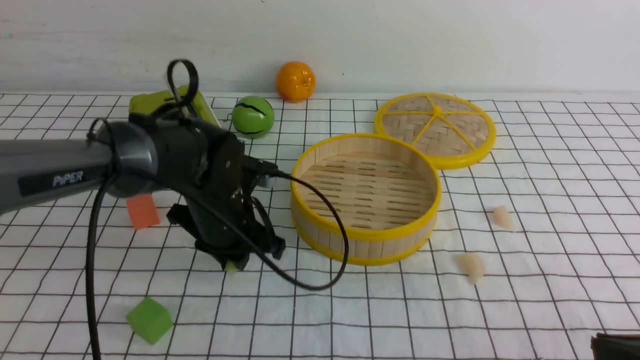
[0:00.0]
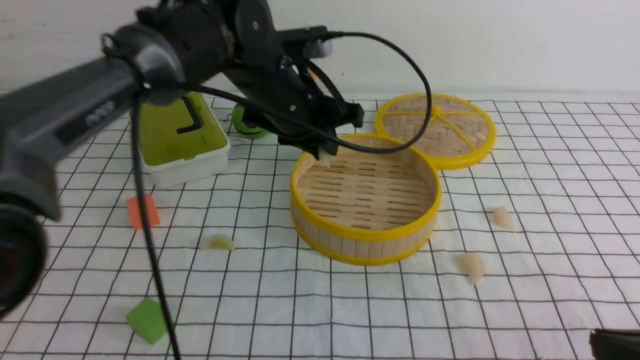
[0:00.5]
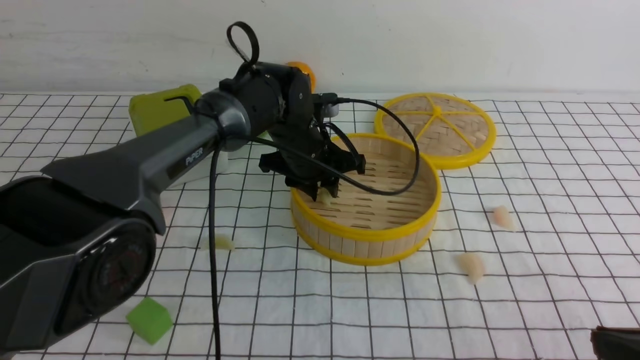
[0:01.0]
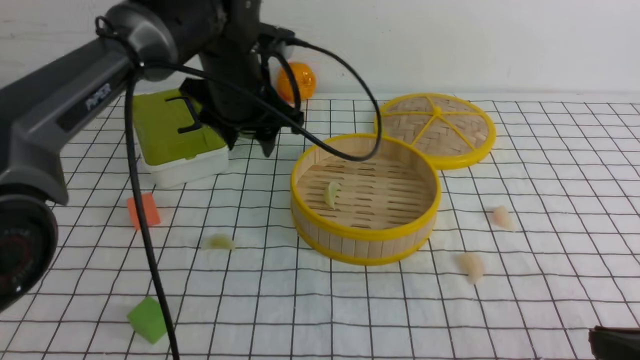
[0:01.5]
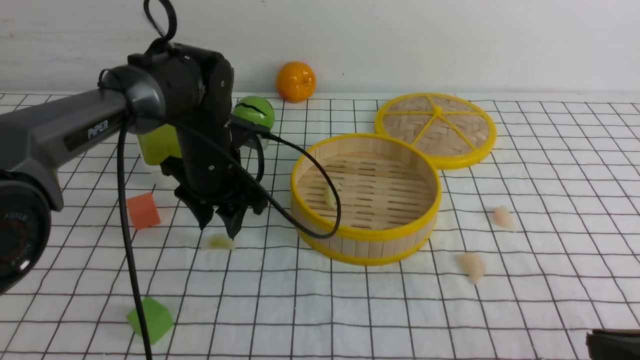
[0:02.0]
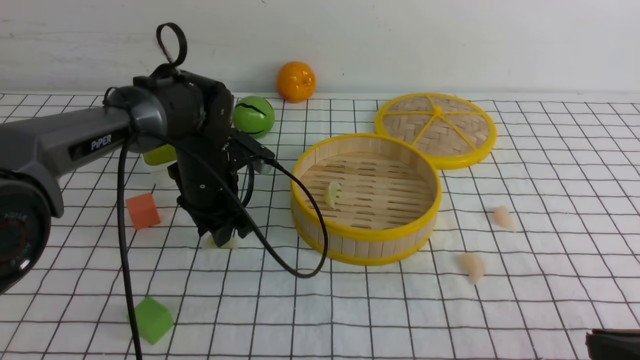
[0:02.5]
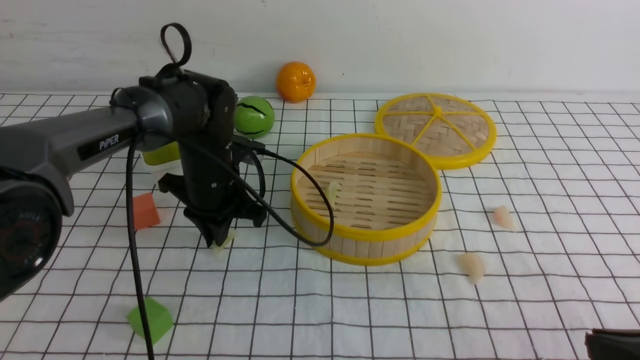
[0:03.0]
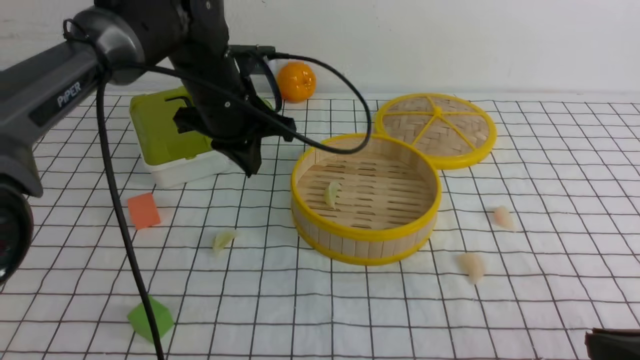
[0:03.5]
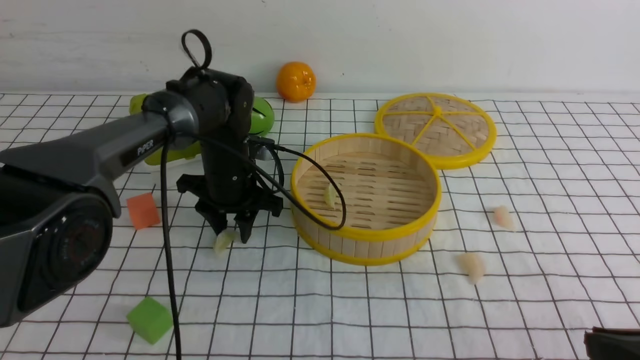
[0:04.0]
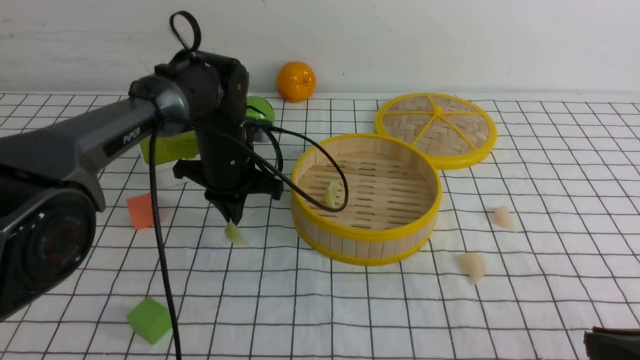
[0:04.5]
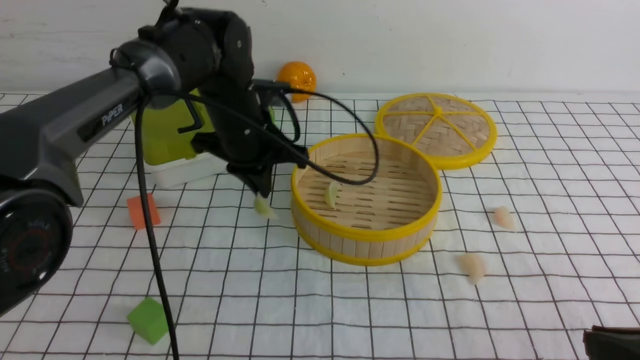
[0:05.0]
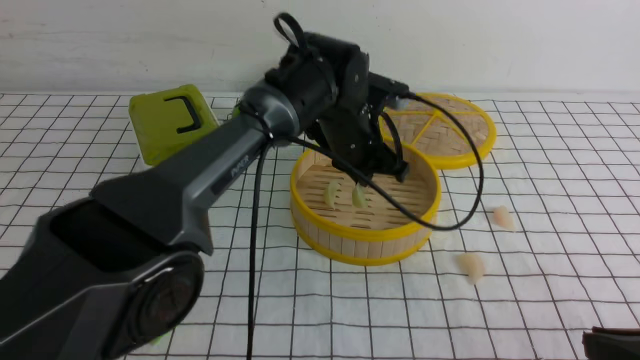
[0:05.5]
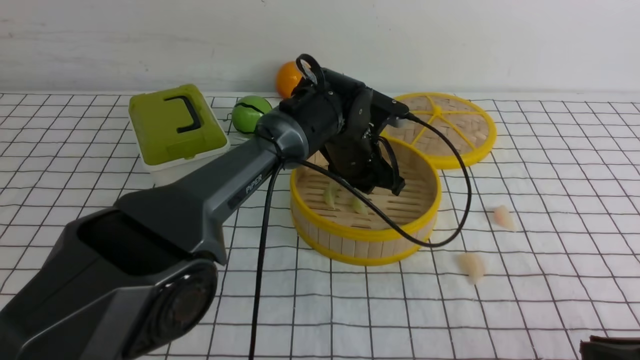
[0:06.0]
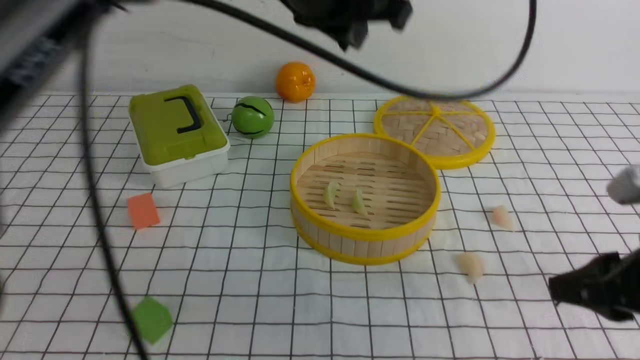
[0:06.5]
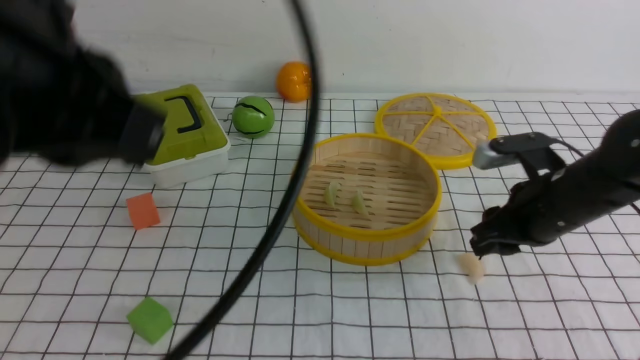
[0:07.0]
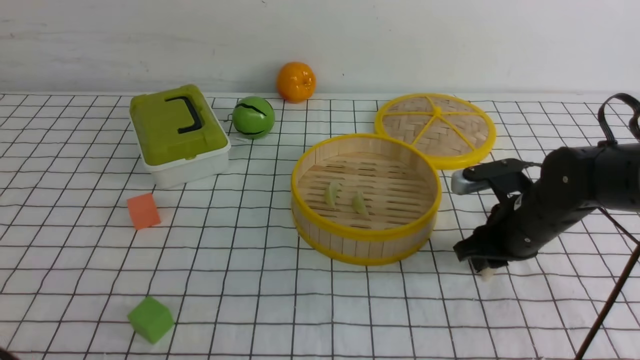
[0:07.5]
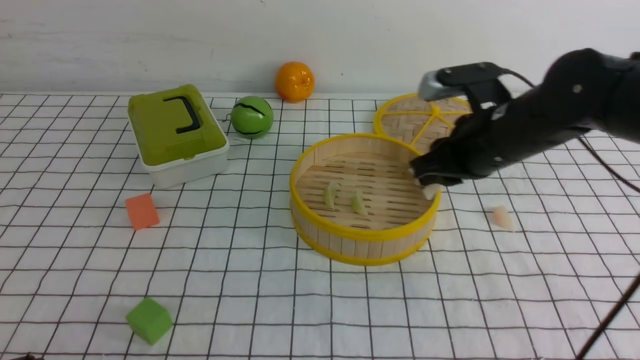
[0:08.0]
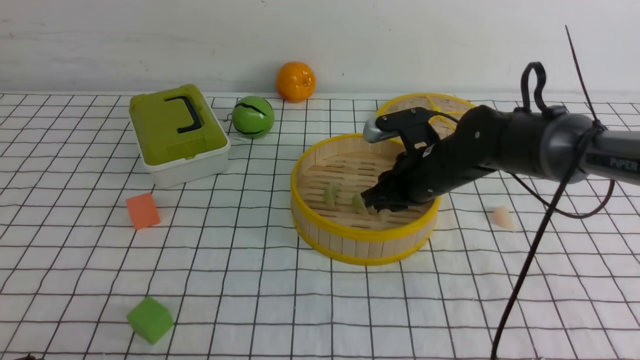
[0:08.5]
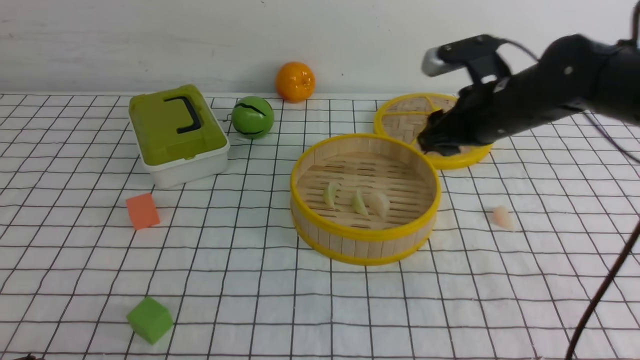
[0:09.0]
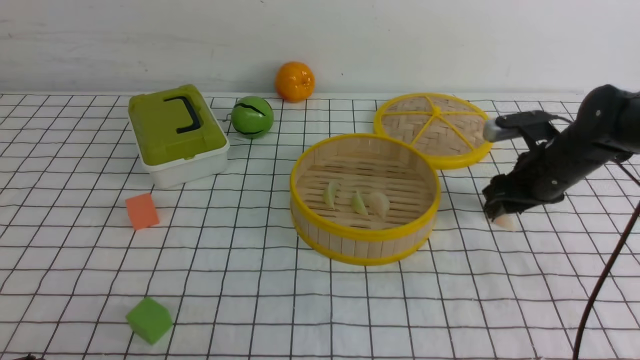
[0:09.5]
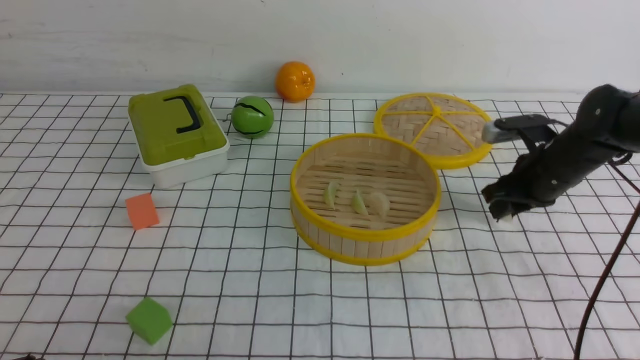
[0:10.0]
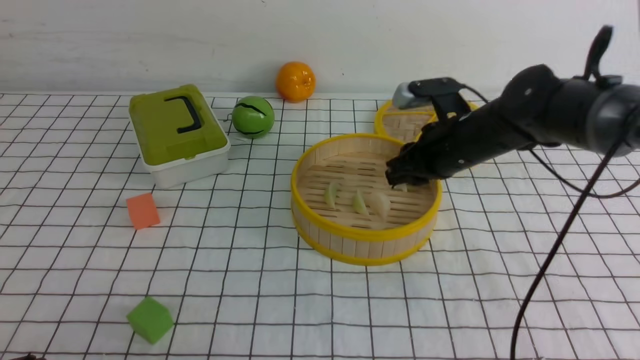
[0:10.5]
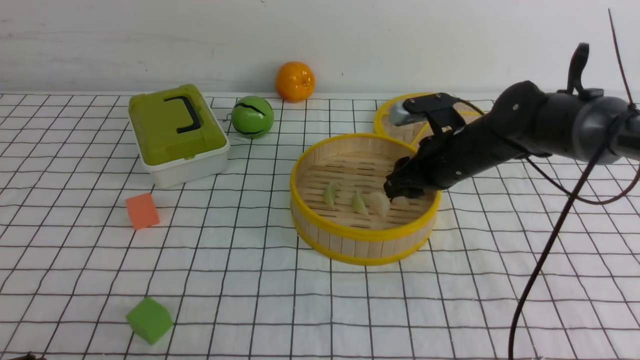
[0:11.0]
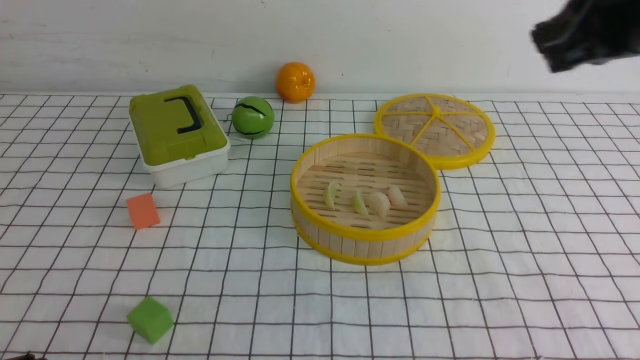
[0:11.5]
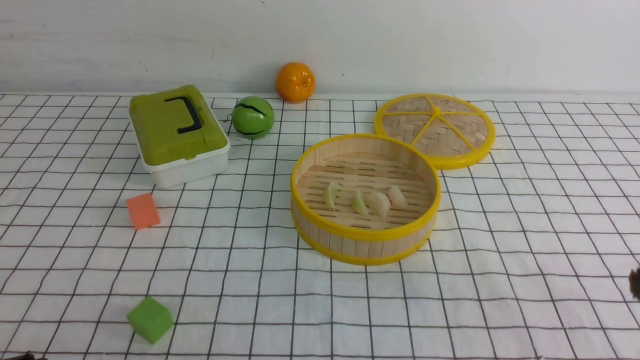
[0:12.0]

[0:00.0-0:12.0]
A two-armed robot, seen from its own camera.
Task of the whole recording: put the dumplings into the steamer on the table with the white tablecloth.
Step, 0:00.5 to 0:01.5: use the left arm to put the dumpling into the steamer.
Step, 0:02.0 to 0:05.0: use the left arm to grab a dumpling.
Step, 0:05.5 to 0:06.5: use the left arm to put the dumpling into the steamer.
Step, 0:07.0 to 0:08.0: use the right arm to grab a dumpling.
Step, 0:08.5 to 0:09.0: use the right arm to put the dumpling into the steamer.
Step, 0:09.5 to 0:10.0: use the right arm to grab a dumpling.
Step, 0:10.5 to 0:11.0: use the right arm to put the dumpling into the steamer.
0:00.0 to 0:02.0: The left gripper goes roughly 5 cm forward, travels to the right and back again, about 10 cm each way, and opens its fingers.
0:02.0 to 0:04.0: The left gripper moves roughly 5 cm upward and comes back, and closes, then reopens.
0:04.0 to 0:06.0: The left gripper travels to the right by roughly 15 cm, and closes, then reopens.
0:06.0 to 0:08.0: The left gripper heads backward and to the left, covering about 50 cm, and closes up. The right gripper travels forward by about 25 cm.
0:08.0 to 0:10.0: The right gripper goes some 10 cm to the right, forward and downward, and opens, then closes again.
0:10.0 to 0:12.0: The right gripper travels backward by approximately 30 cm, and closes its fingers.
